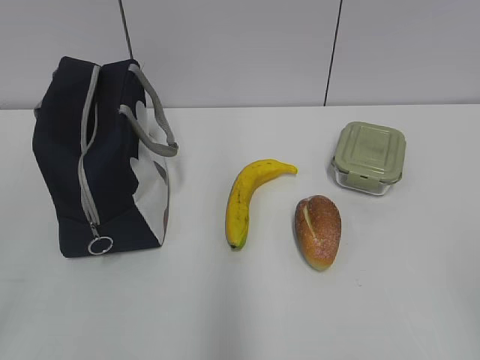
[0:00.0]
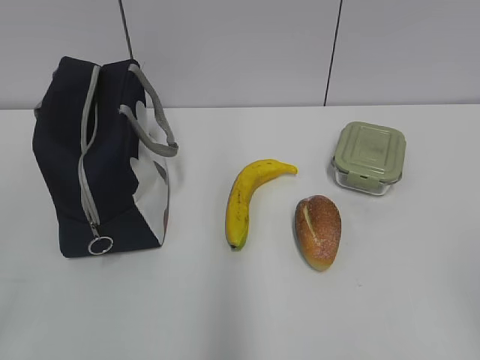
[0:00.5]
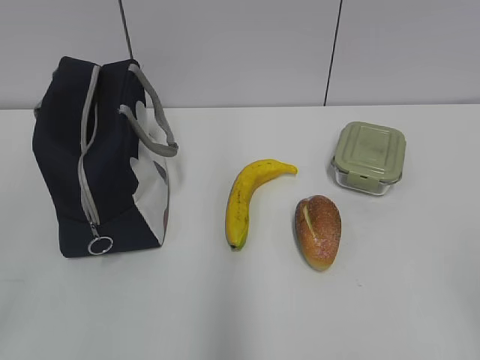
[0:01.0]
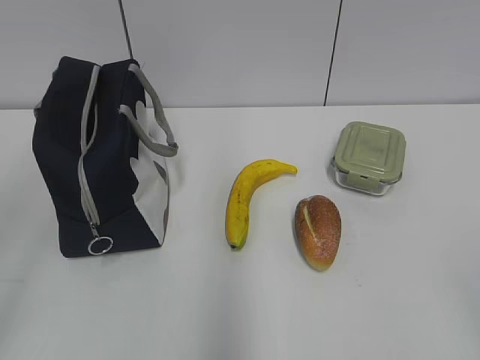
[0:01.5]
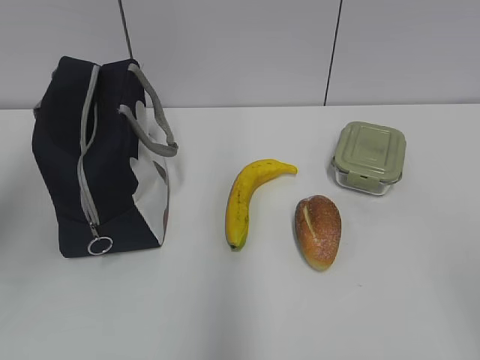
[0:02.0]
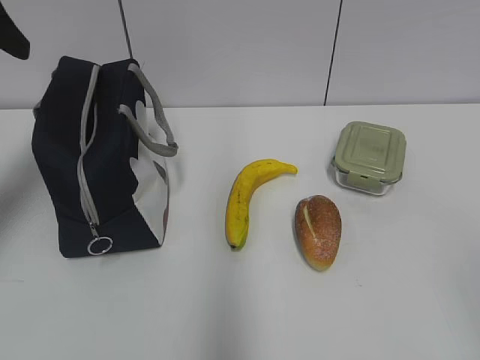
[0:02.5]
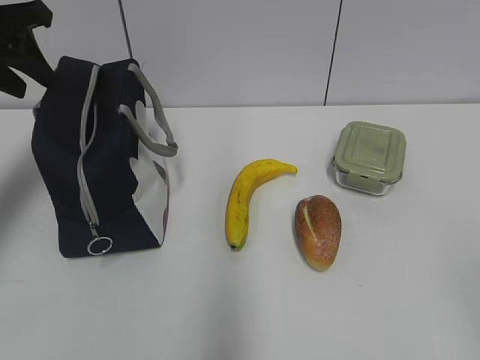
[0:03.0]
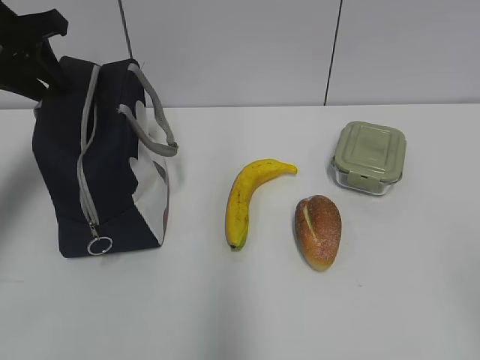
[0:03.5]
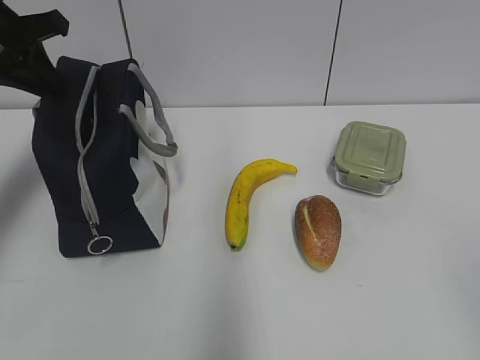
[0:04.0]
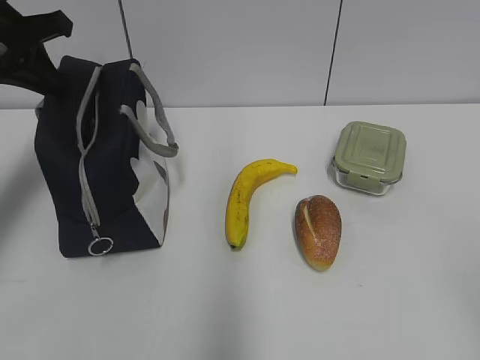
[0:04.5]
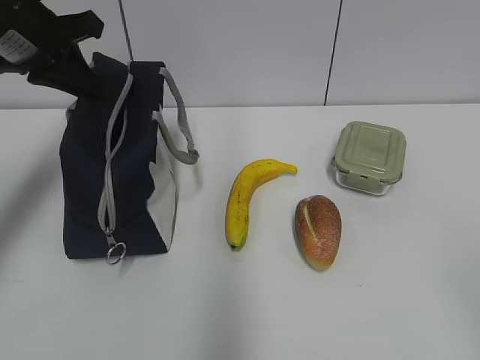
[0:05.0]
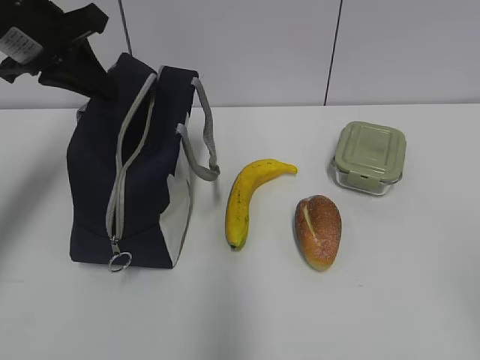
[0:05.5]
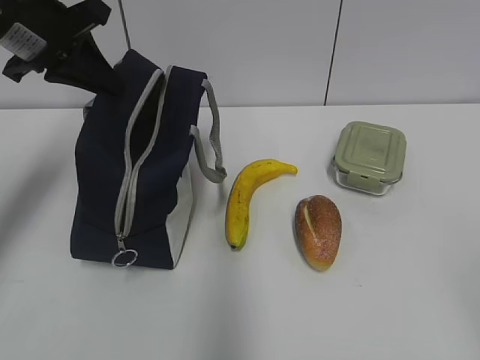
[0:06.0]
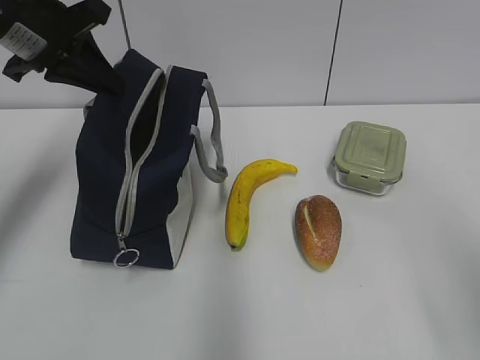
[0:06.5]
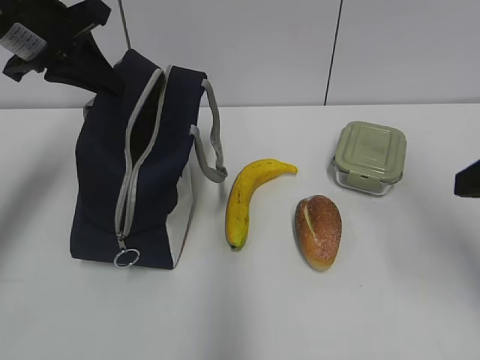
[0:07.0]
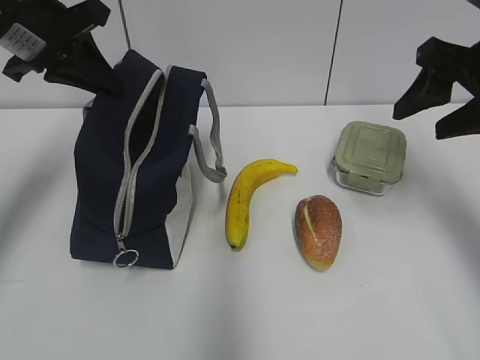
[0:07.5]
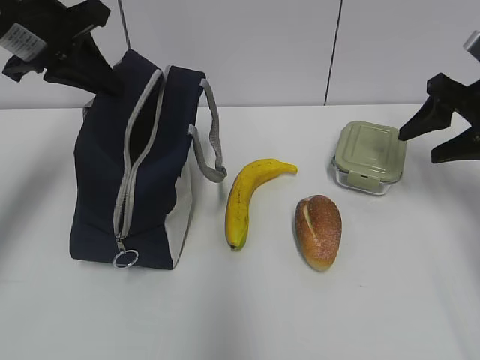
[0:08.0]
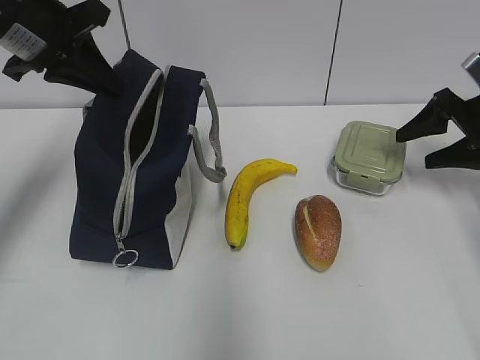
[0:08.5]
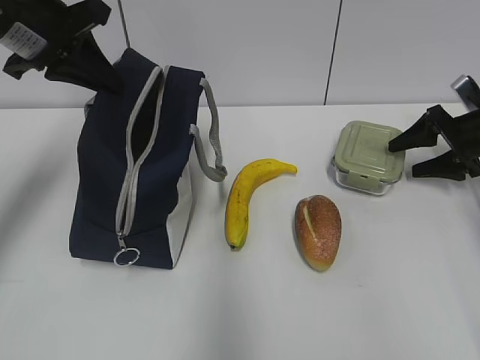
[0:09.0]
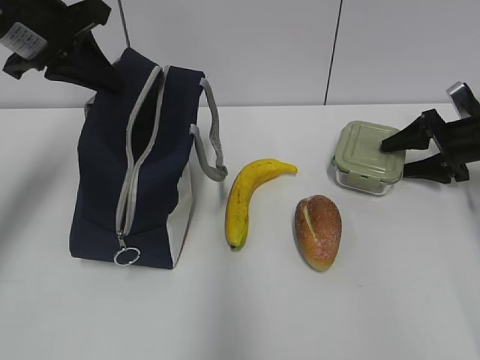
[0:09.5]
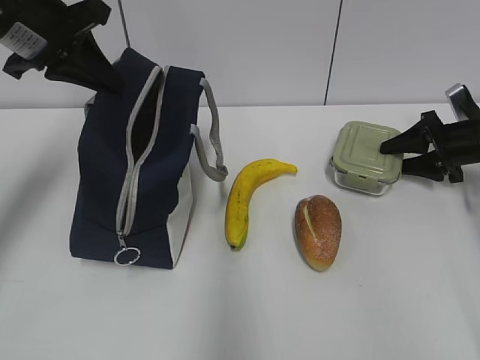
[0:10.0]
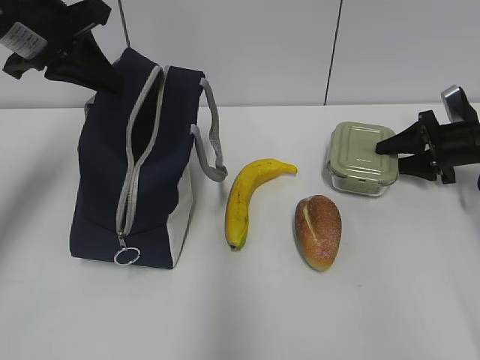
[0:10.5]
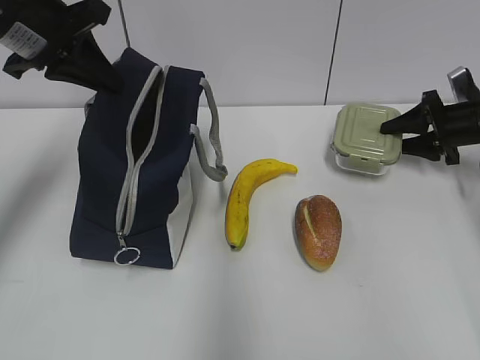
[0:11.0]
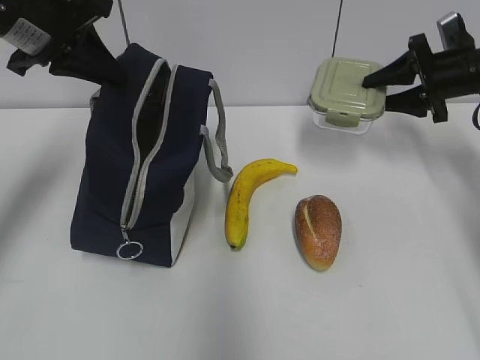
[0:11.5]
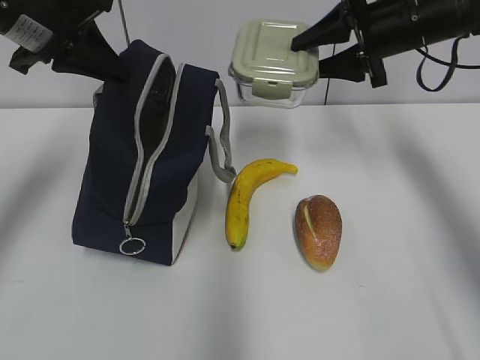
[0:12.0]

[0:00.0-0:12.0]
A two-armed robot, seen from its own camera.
Step, 0:00.0 to 0:10.5: Grab the lunch box with your right hand.
0:02.0 to 0:04.0: The left gripper travels forward by about 20 cm, and closes.
0:04.0 to 0:06.0: The left gripper goes roughly 5 cm to the right.
0:06.0 to 0:08.0: The right gripper moves forward, about 35 cm.
0:08.0 to 0:10.0: The right gripper goes roughly 15 cm downward, forward and to the right.
0:10.0 to 0:12.0: The right gripper is displaced upward and to the left by some 25 cm.

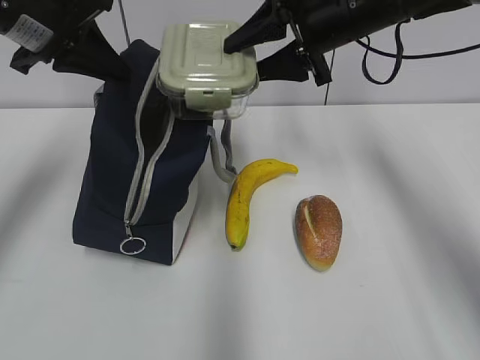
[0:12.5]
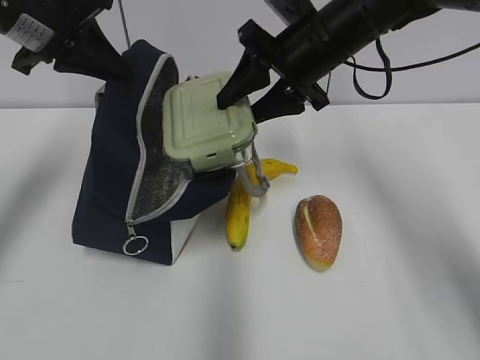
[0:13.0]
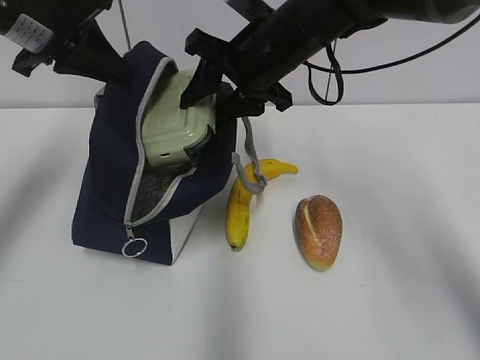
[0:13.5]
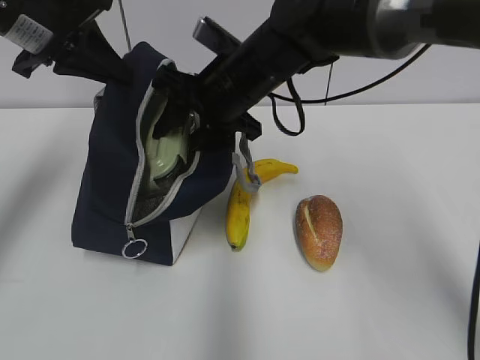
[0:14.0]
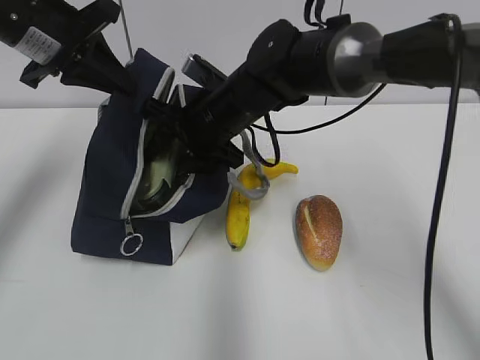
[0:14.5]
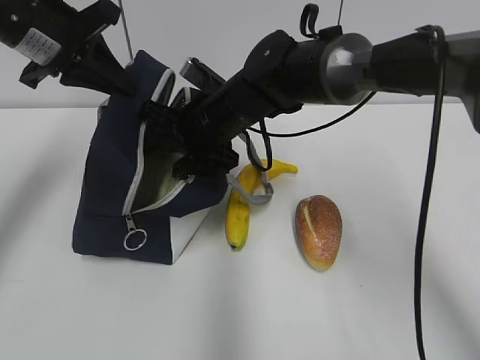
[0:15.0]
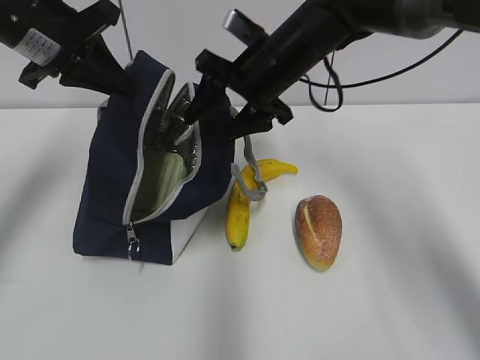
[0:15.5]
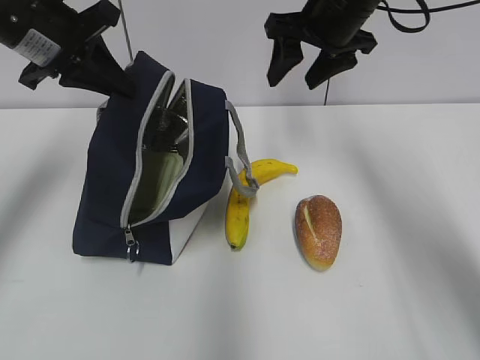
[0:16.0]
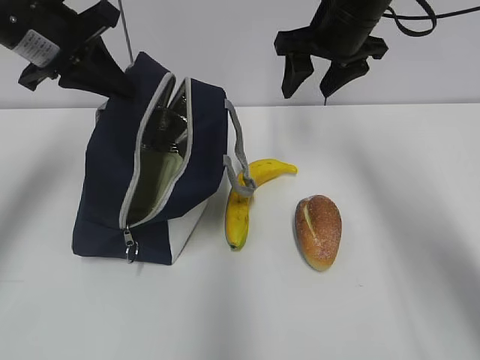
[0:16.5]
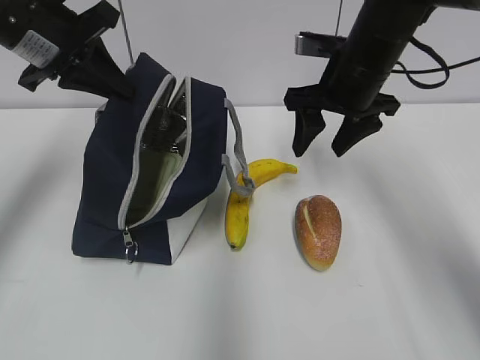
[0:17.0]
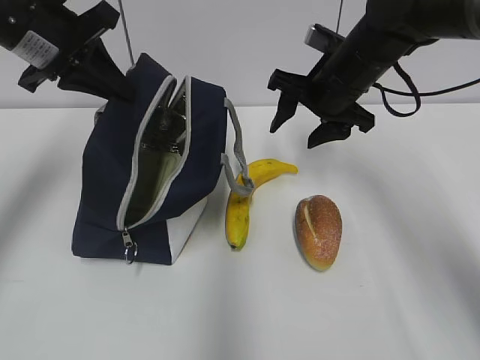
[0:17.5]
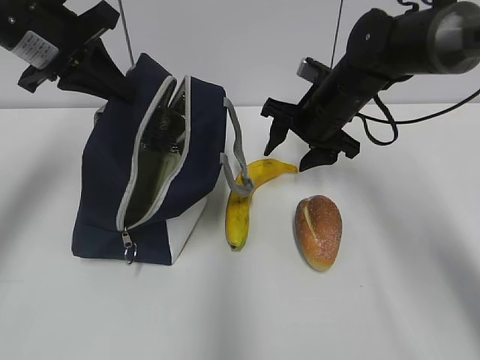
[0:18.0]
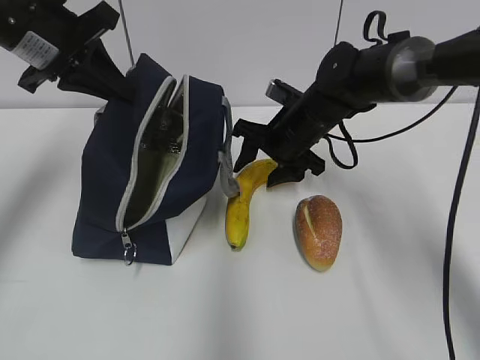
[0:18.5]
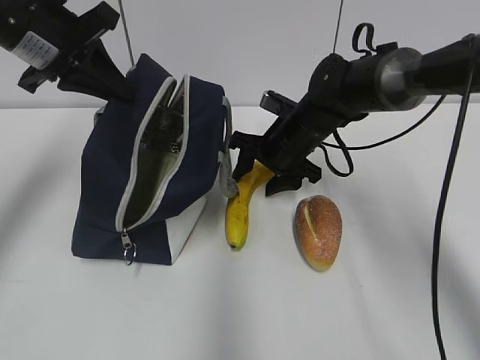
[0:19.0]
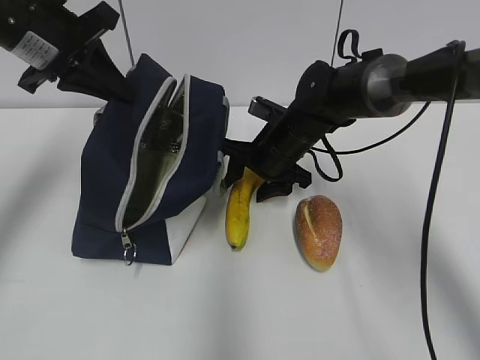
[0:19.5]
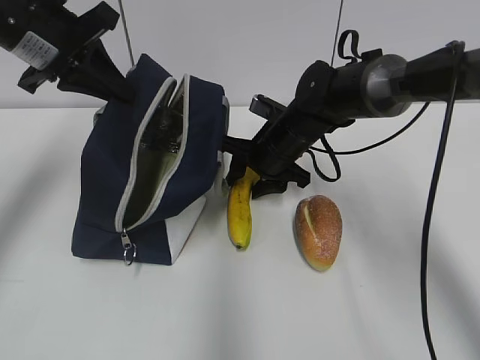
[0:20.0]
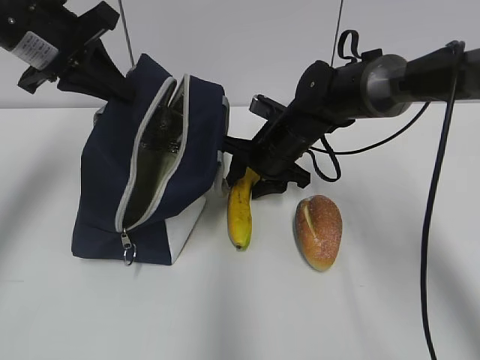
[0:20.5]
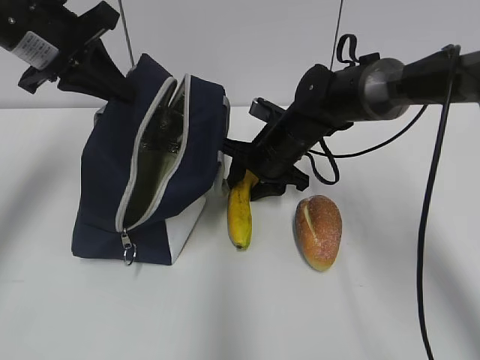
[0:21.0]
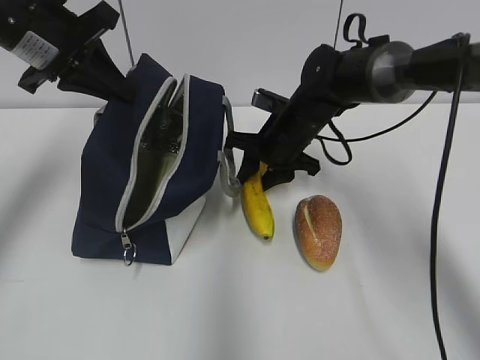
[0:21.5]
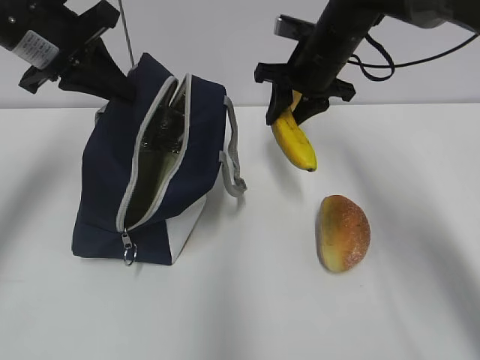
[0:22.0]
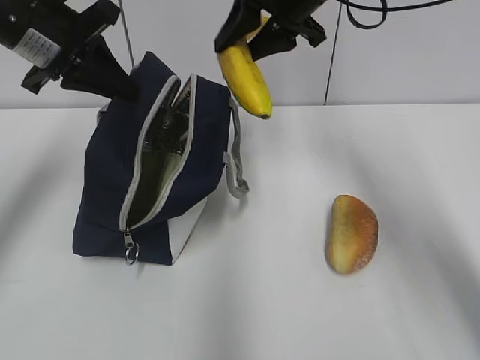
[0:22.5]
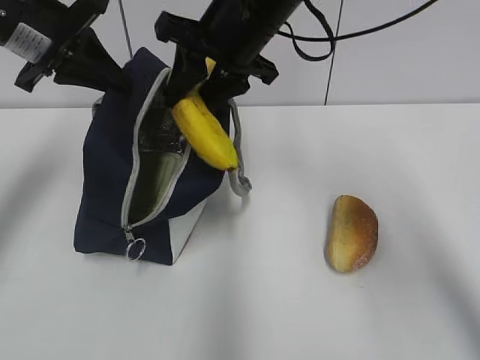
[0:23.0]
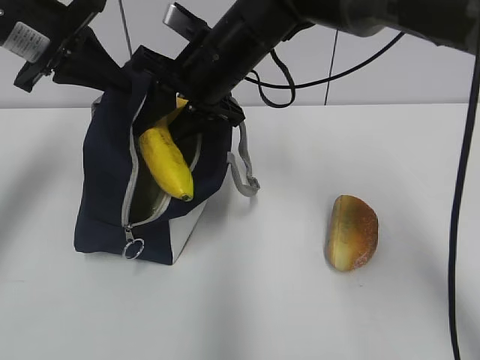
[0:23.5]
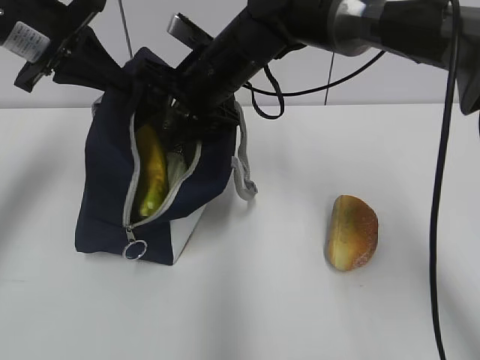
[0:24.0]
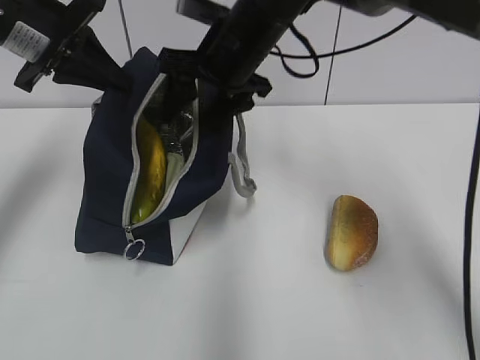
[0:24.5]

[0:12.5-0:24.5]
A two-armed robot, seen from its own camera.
Step, 0:13.0 to 0:15.0: Place it into the bag with your right hand.
Step, 0:15.5 to 0:21.0: Grab the banana with your right hand.
Step, 0:21.5 to 0:24.0: Place it into the bag with your right hand.
0:12.5 to 0:14.5: The right gripper heads to the left and downward, covering about 15 cm.
0:14.5 to 0:16.5: The right gripper heads to the right and upward, covering some 20 cm.
0:16.5 to 0:18.5: The right gripper shifts about 15 cm downward.
0:18.5 to 0:20.5: The grippers stay close to where they were, moving slightly.
0:20.5 to 0:22.5: The right gripper moves upward, some 20 cm.
0:22.5 to 0:24.5: The right gripper is displaced to the left and downward by roughly 10 cm, and opens its fingers.

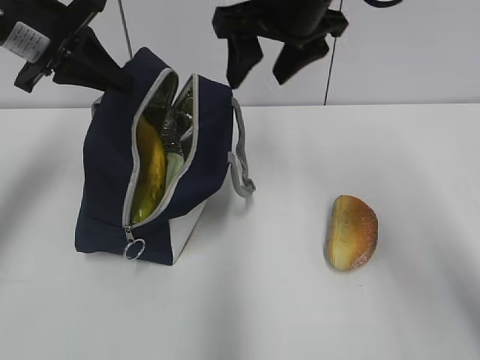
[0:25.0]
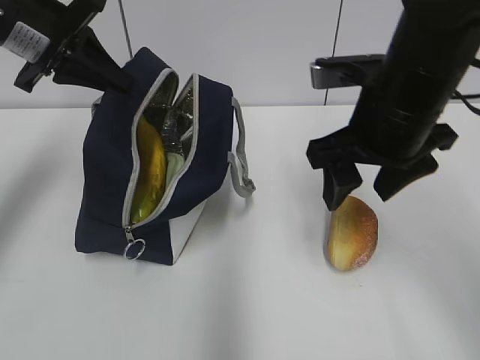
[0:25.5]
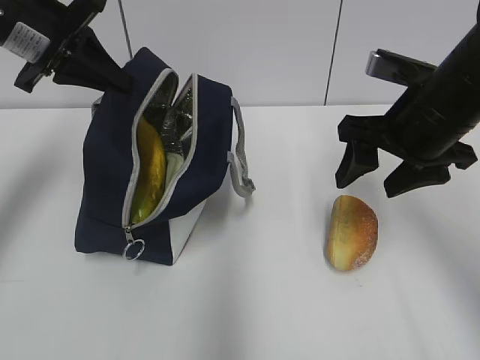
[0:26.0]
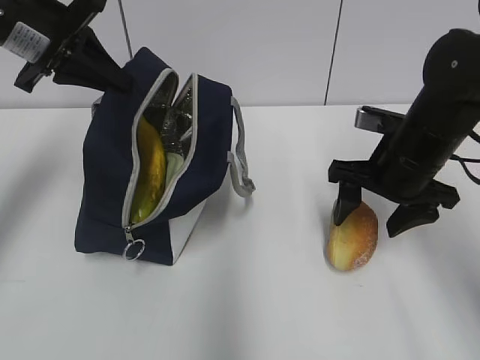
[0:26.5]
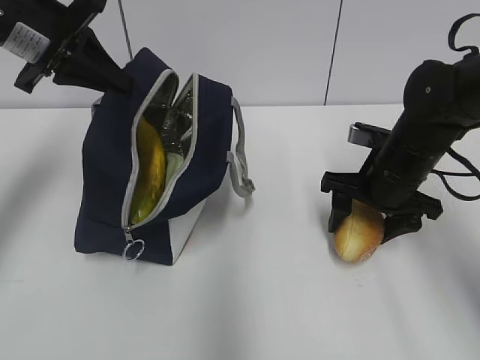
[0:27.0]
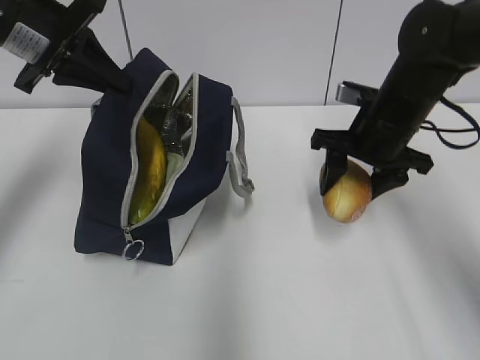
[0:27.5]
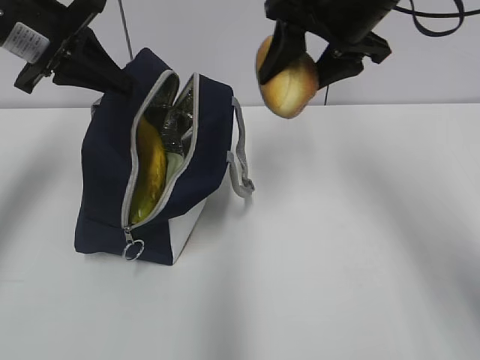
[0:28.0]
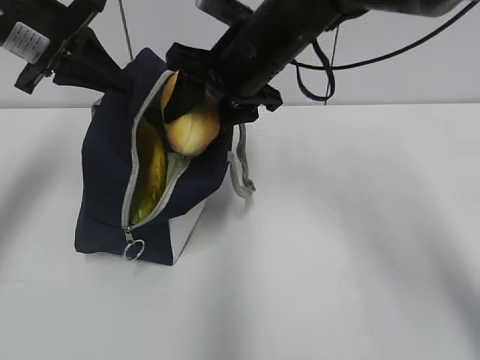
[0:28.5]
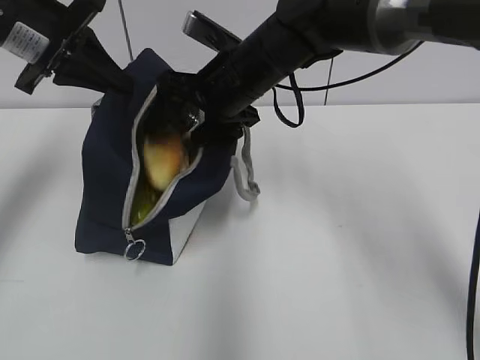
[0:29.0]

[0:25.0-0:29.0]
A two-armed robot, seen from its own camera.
Step, 0:25.0 to 0:27.0: Grab the bread with your right hand.
0:25.0 to 0:27.0: The right gripper travels downward and to the right by approximately 20 cm.
0:27.0 to 0:29.0: The right gripper heads to the left and upward, covering approximately 20 cm.
